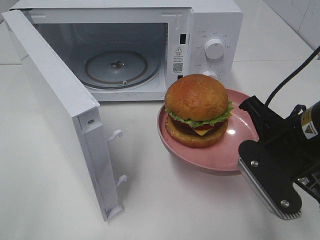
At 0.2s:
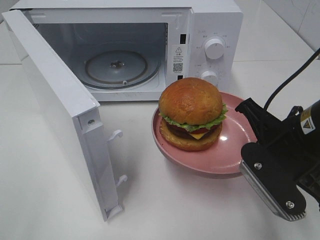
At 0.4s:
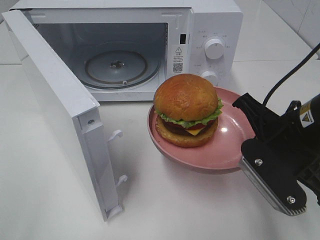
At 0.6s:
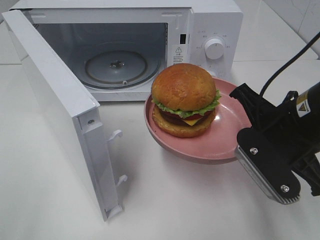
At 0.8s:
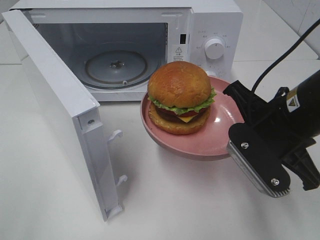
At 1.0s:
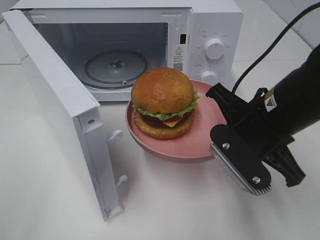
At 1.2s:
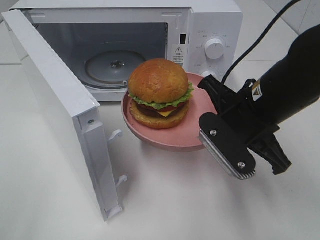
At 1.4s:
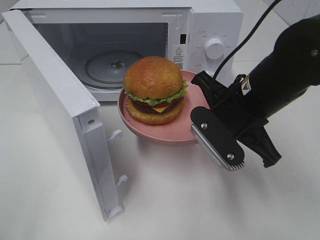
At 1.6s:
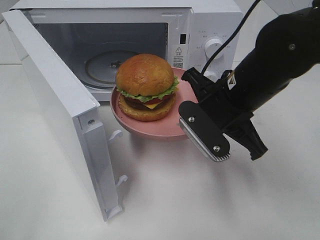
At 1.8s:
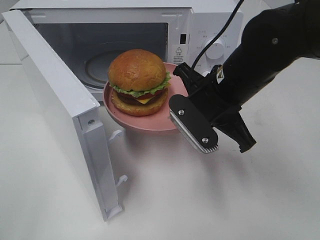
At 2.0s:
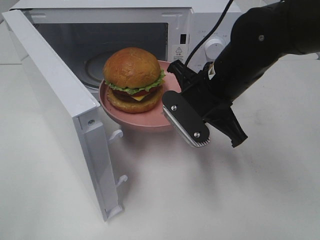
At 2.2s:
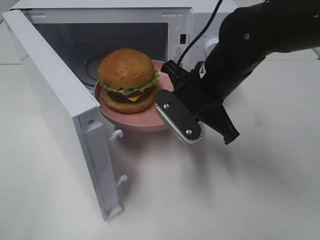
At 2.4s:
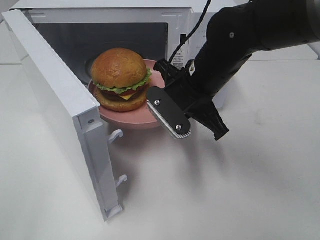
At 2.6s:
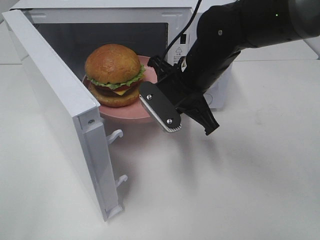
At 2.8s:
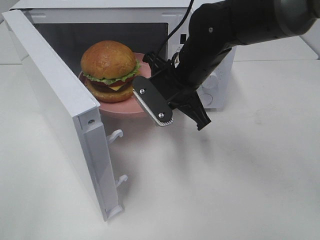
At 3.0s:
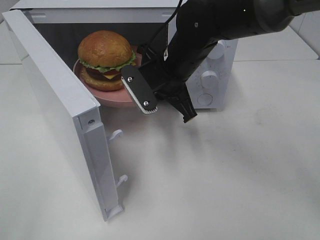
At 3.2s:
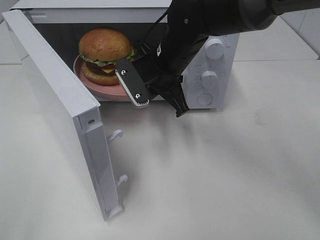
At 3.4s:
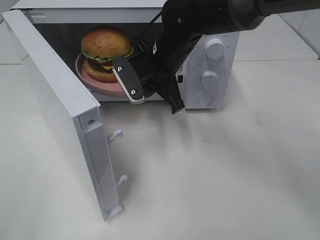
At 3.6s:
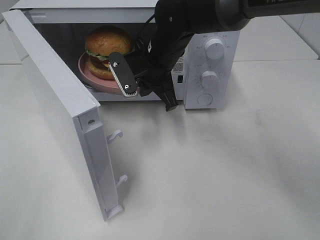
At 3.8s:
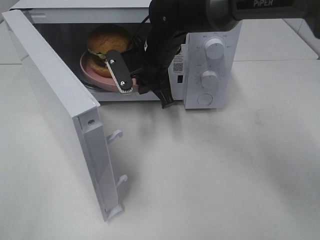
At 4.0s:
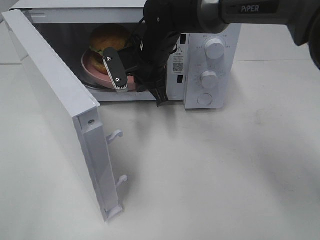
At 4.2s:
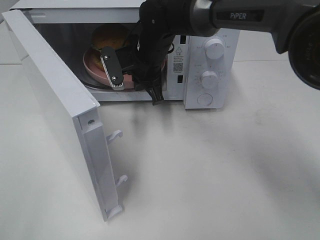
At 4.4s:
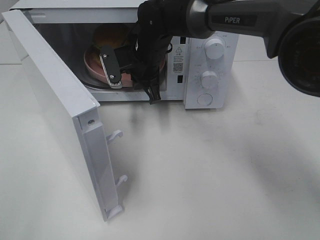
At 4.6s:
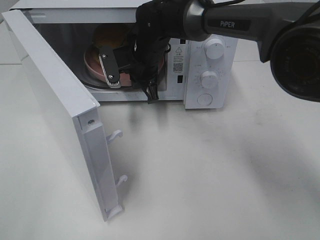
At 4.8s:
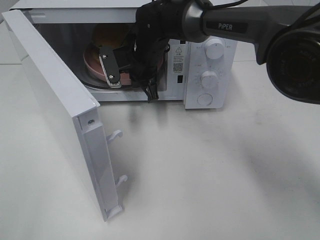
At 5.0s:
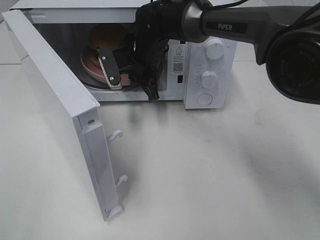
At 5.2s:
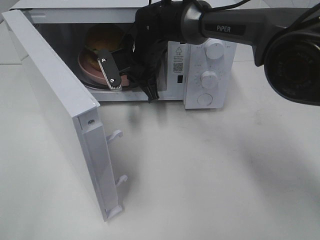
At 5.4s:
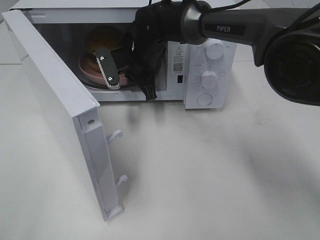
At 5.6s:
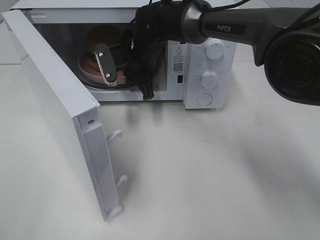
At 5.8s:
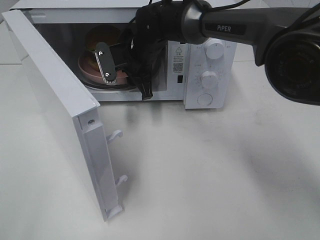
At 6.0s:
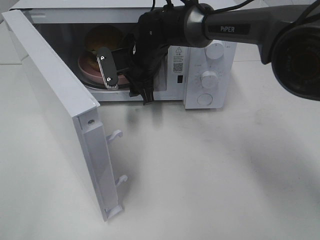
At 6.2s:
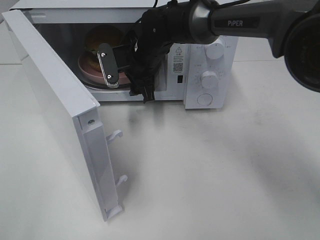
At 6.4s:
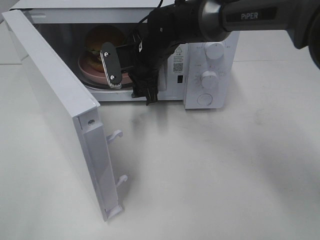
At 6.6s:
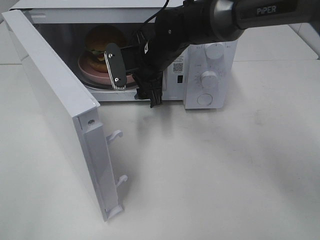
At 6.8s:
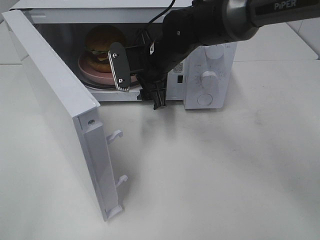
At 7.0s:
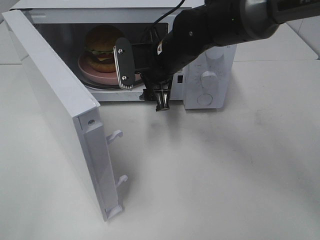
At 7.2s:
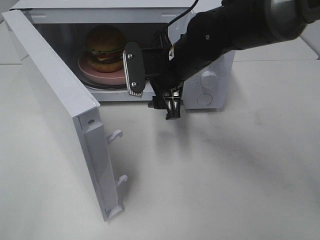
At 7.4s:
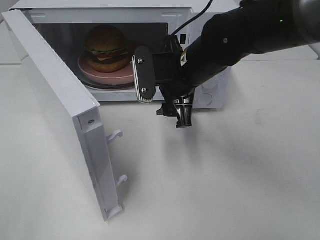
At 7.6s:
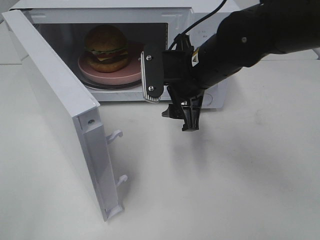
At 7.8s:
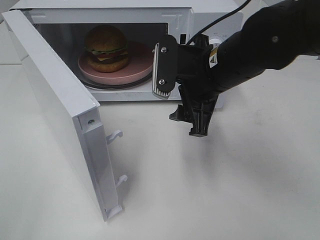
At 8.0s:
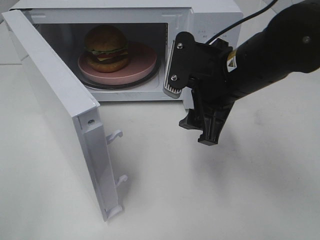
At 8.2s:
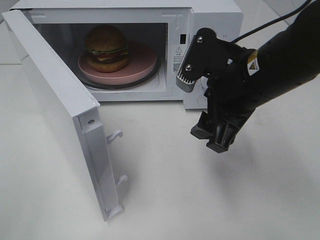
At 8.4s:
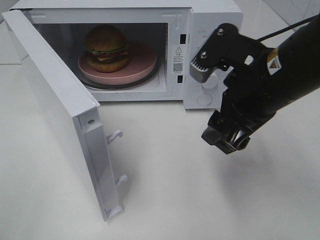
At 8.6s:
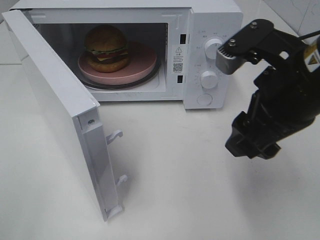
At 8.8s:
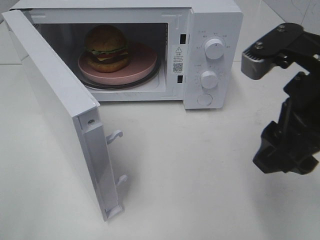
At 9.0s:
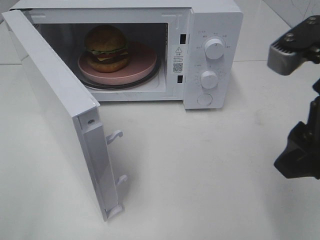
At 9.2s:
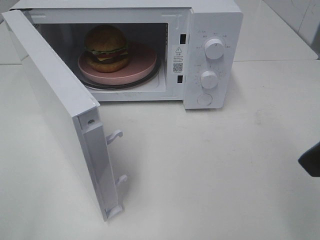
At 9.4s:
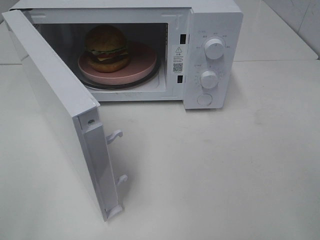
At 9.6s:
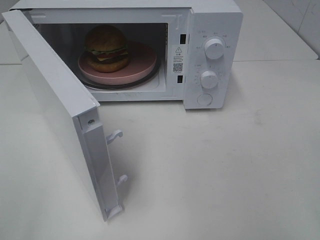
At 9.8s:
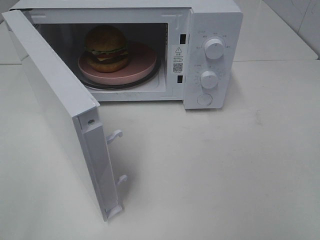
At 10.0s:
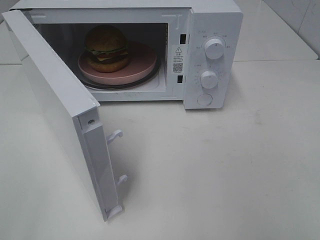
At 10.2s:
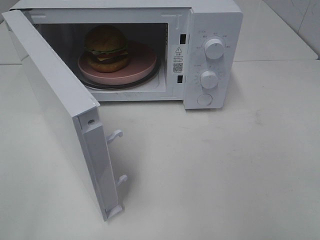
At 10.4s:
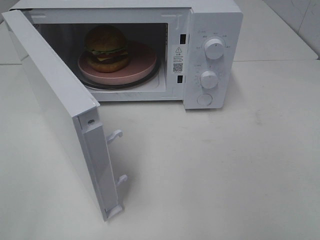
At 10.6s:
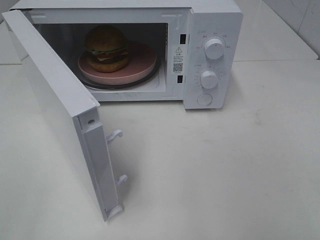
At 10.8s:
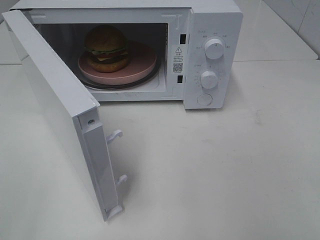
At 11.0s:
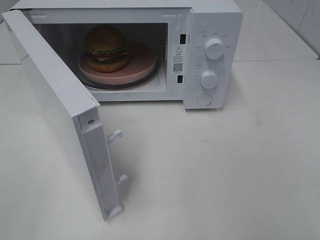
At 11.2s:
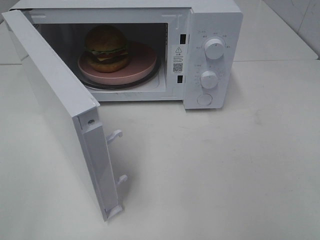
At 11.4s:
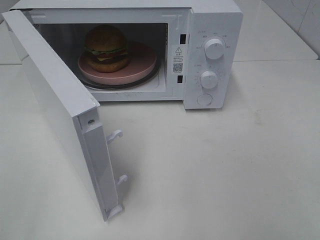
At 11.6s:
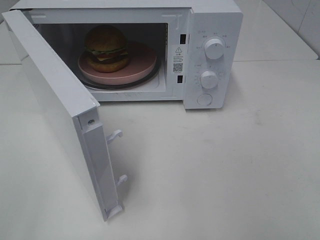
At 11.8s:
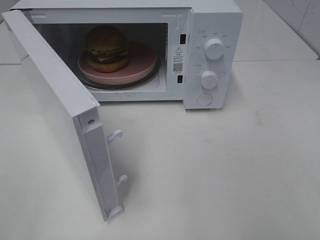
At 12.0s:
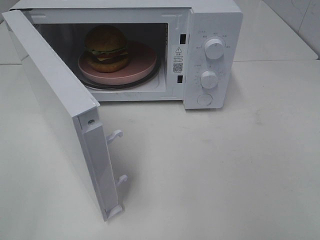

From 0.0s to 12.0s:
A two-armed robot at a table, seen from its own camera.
Task of the whole recording: Heat the burger.
Step, from 0.0s to 6.8s: Right hand: place the plate in the microwave.
From 0.0s to 1.6s: The right gripper goes about 10 cm forward and to the left.
From 1.6s to 3.0s: The right gripper travels forward and to the left by about 10 cm.
From 3.0s to 4.4s: The right gripper heads forward and to the left, covering about 10 cm.
From 4.4s to 6.0s: The right gripper opens.
From 6.0s to 7.6s: The right gripper goes some 15 cm backward and to the right.
From 7.6s to 9.0s: The right gripper goes about 20 cm backward, to the right and upward.
From 9.0s to 10.4s: The right gripper is displaced backward and to the right by roughly 15 cm.

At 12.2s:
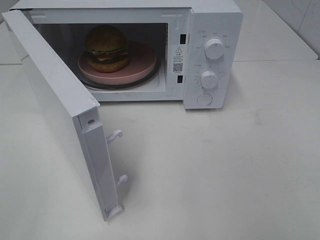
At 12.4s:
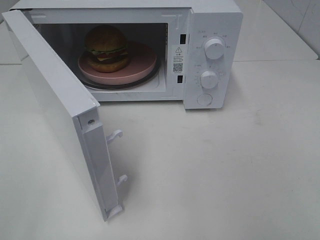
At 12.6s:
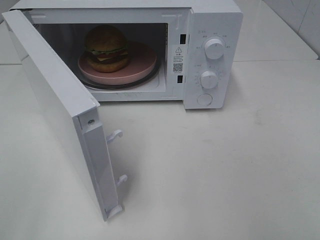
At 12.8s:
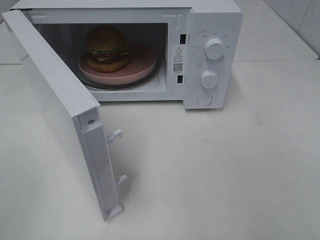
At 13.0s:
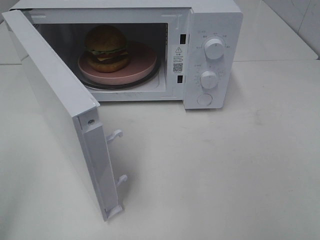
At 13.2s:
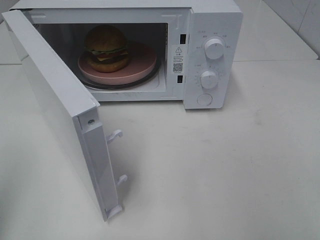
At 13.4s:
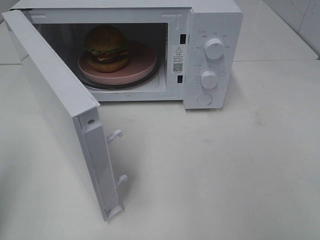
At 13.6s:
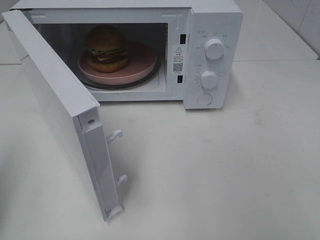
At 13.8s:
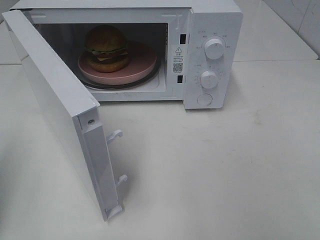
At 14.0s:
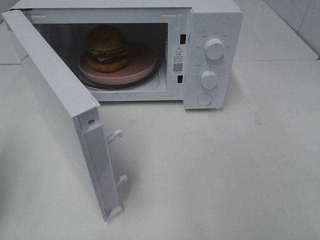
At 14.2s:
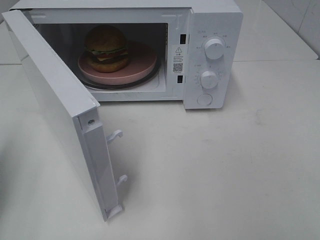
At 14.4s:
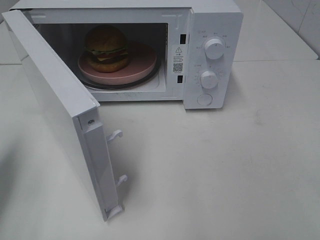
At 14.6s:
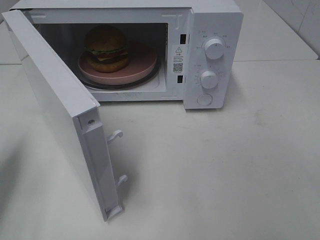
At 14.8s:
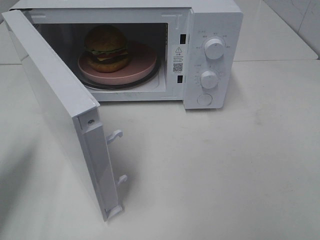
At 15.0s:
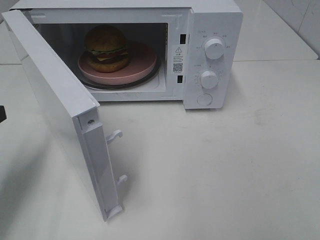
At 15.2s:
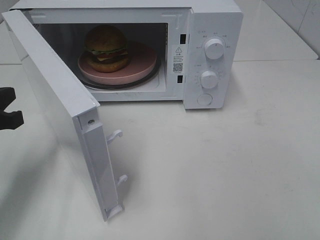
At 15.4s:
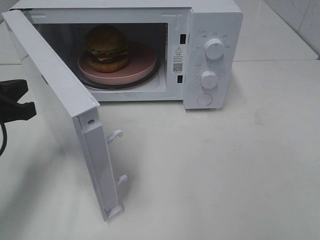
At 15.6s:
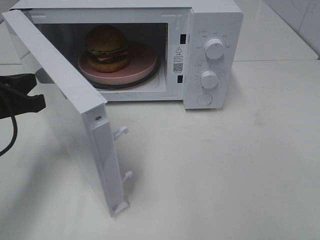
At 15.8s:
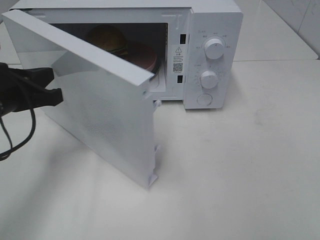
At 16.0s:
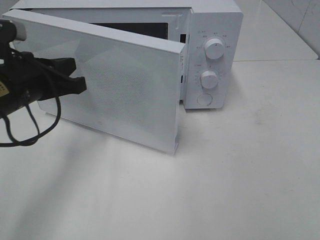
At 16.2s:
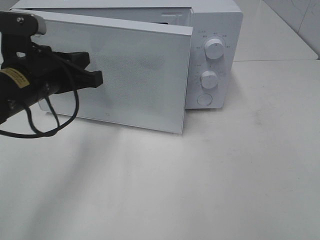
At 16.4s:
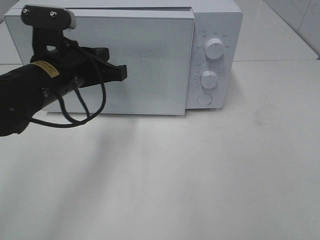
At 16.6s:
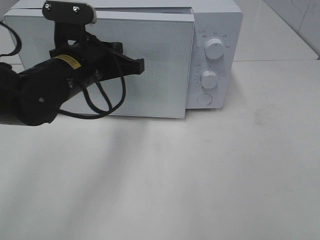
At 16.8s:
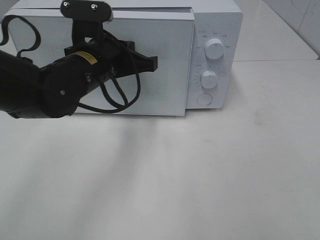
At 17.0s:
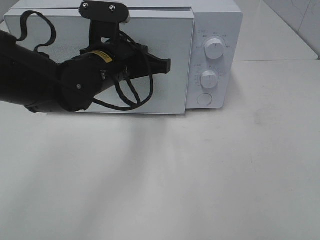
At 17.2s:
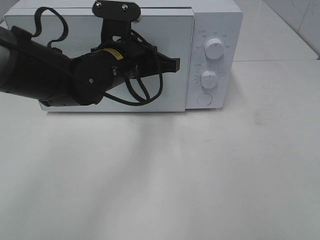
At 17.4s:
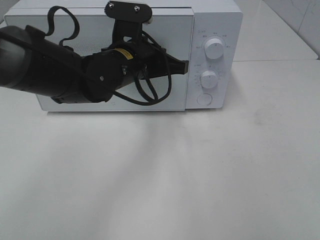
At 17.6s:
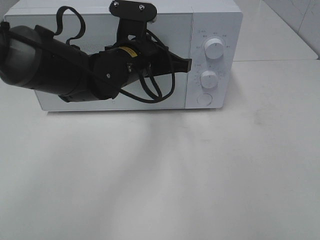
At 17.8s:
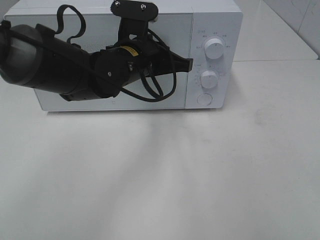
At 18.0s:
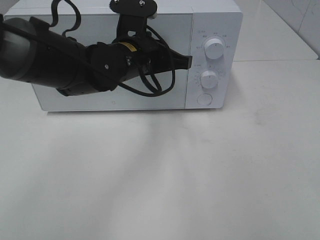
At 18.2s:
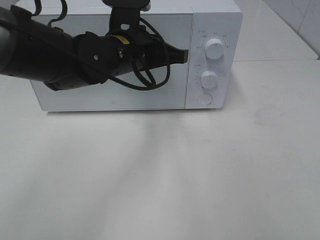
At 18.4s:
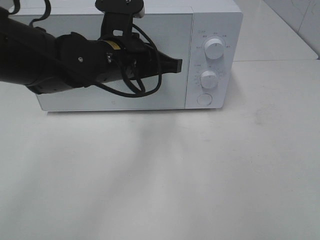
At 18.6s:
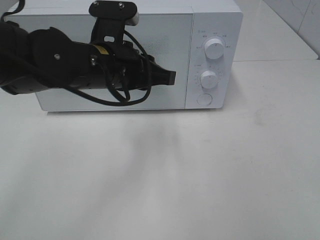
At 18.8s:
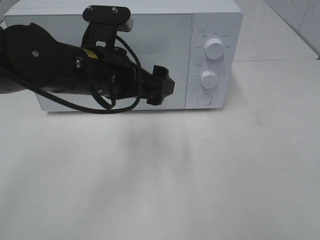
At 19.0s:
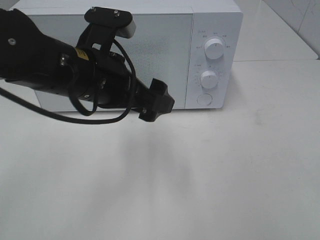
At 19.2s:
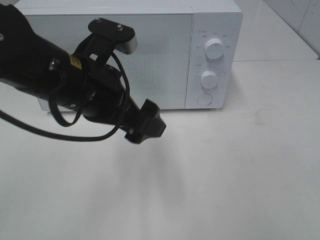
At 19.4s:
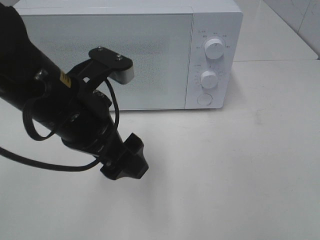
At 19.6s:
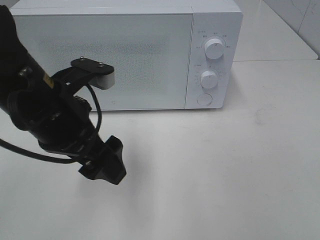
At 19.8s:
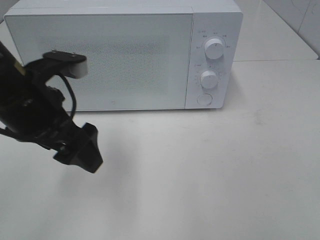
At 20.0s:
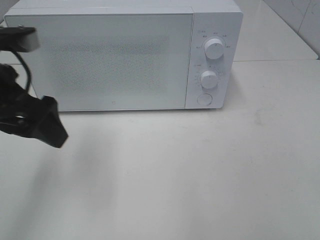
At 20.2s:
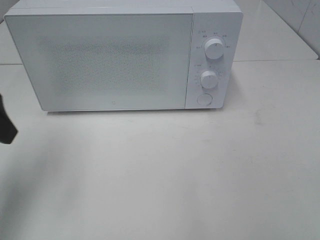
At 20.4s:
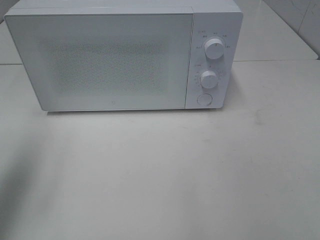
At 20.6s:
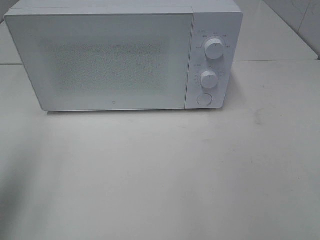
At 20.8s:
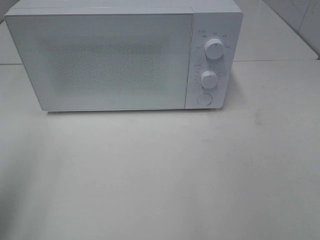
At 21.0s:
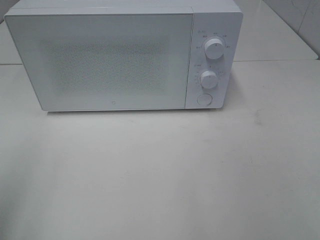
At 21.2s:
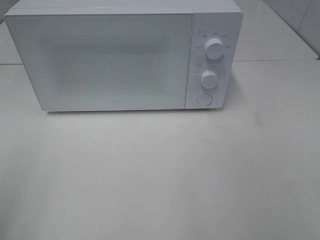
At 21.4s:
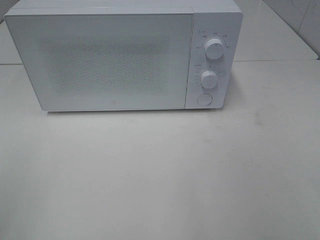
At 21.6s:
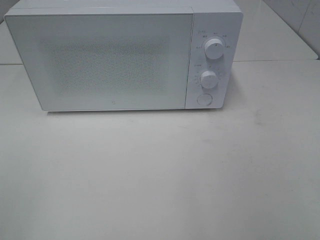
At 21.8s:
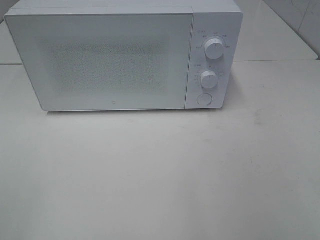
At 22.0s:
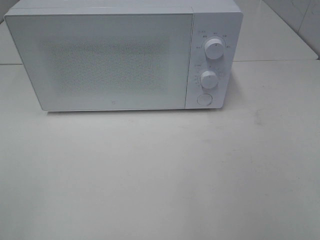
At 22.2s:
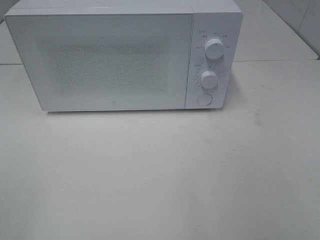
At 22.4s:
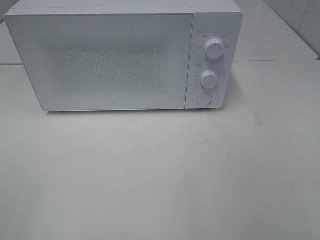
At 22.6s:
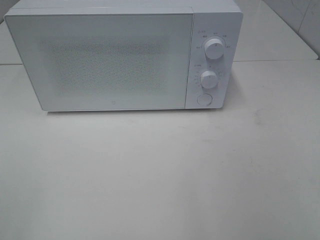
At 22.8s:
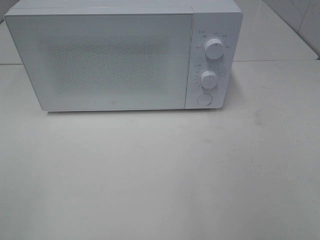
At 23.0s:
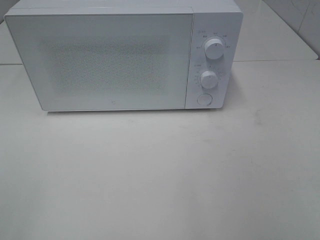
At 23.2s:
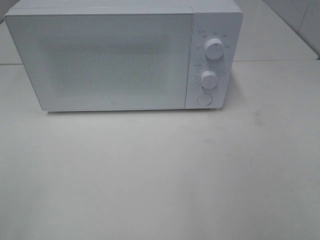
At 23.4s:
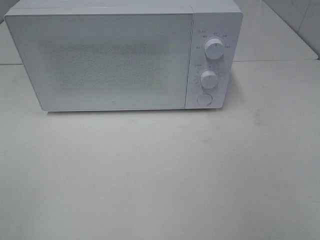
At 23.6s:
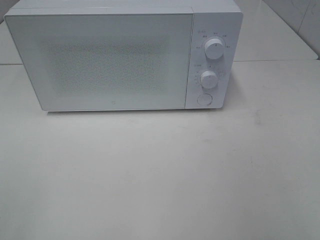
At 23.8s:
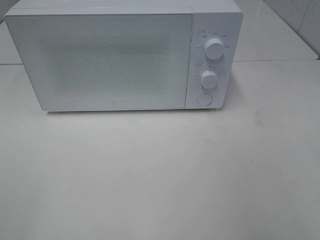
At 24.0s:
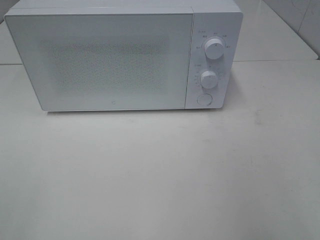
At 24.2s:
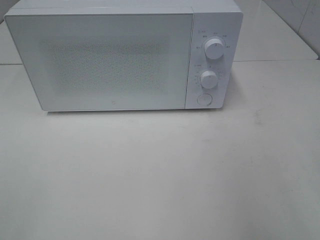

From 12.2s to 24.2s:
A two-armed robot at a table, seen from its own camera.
Task of the whole recording: Heat the burger.
Step, from 12.2s to 18.6s: Left hand: close the microwave door.
From 12.2s to 13.8s: The left gripper goes approximately 15 cm forward, and closes up.
From 13.8s to 15.2s: The left gripper shifts about 15 cm downward, forward and to the right.
From 15.2s to 16.6s: The left gripper travels to the right and forward by approximately 20 cm.
From 16.6s to 18.2s: The left gripper moves to the right, about 5 cm.
From 18.2s to 19.8s: The left gripper shifts about 15 cm to the left and backward, and opens.
From 19.8s to 21.2s: The left gripper heads backward and to the left, covering approximately 25 cm.
